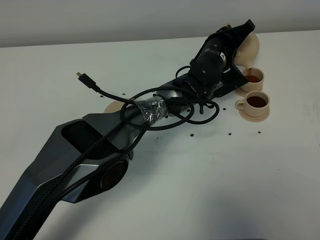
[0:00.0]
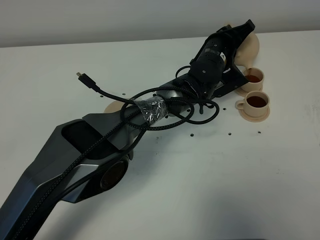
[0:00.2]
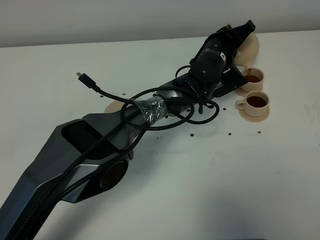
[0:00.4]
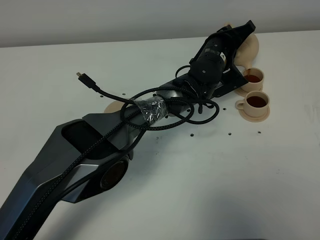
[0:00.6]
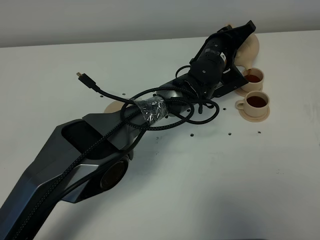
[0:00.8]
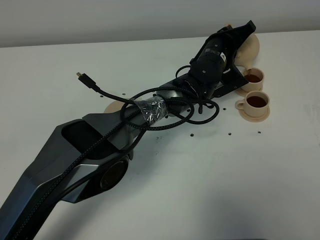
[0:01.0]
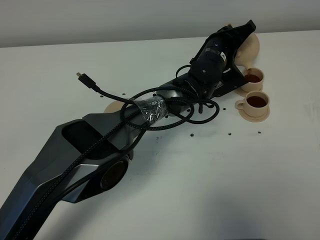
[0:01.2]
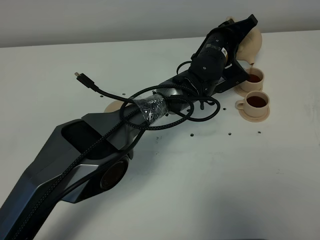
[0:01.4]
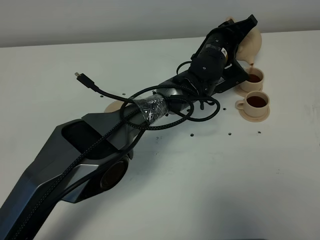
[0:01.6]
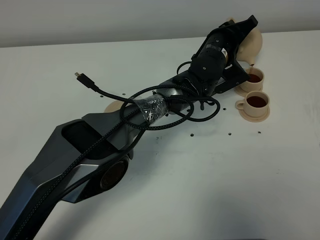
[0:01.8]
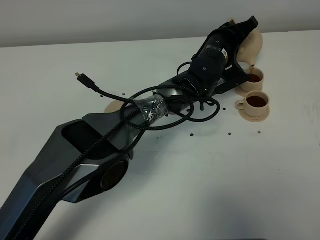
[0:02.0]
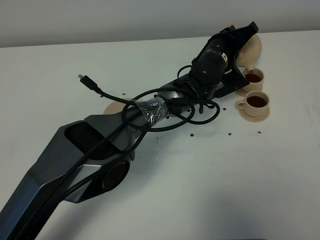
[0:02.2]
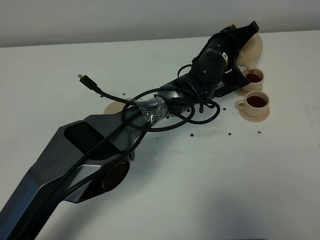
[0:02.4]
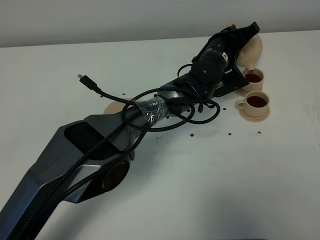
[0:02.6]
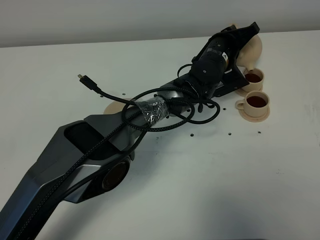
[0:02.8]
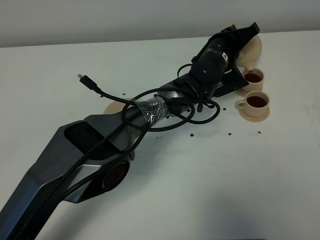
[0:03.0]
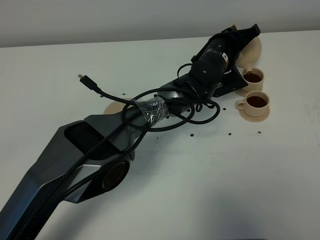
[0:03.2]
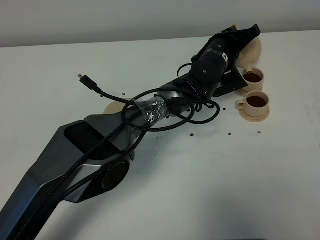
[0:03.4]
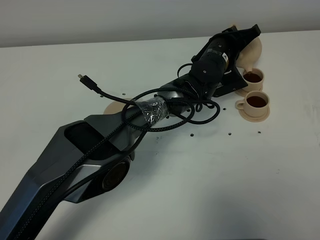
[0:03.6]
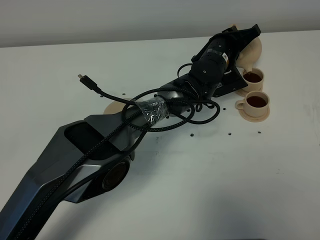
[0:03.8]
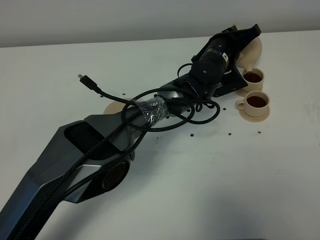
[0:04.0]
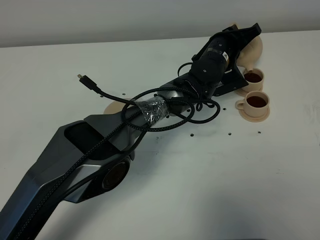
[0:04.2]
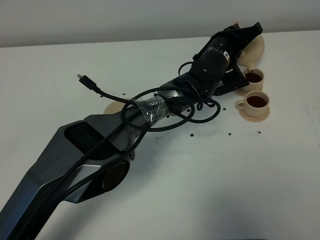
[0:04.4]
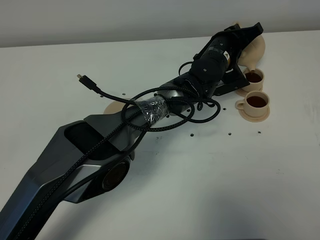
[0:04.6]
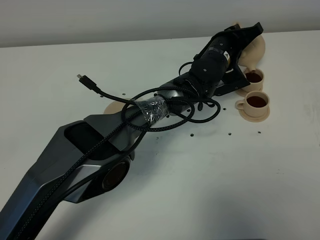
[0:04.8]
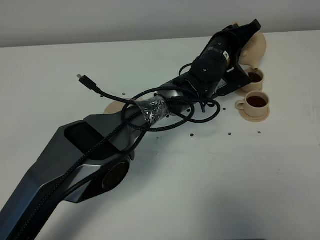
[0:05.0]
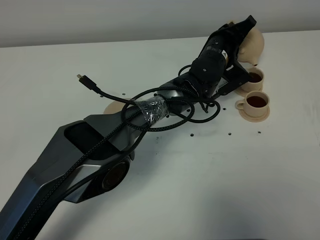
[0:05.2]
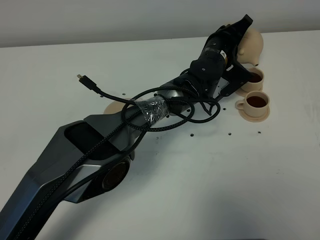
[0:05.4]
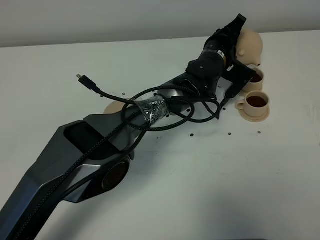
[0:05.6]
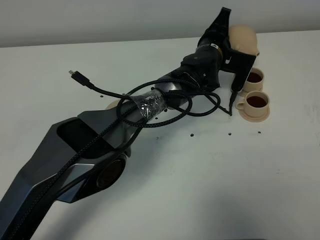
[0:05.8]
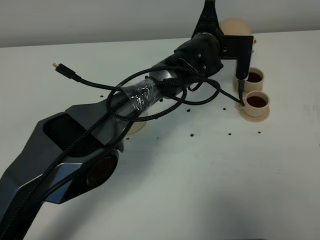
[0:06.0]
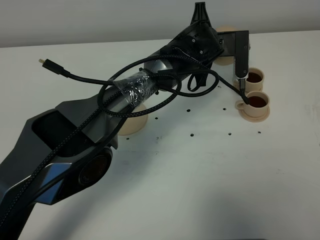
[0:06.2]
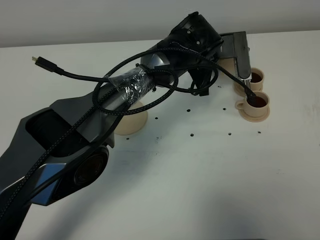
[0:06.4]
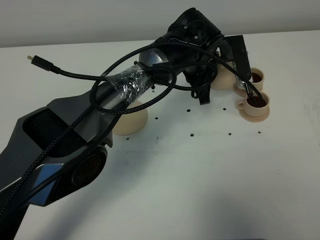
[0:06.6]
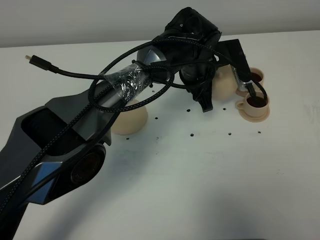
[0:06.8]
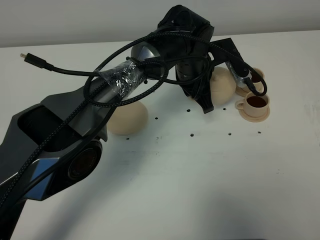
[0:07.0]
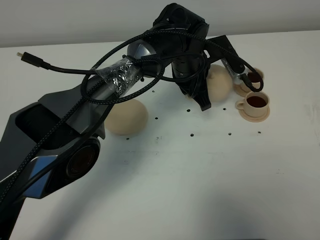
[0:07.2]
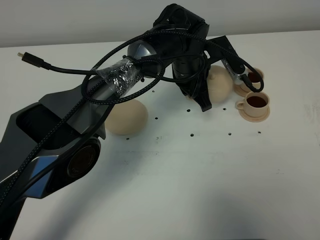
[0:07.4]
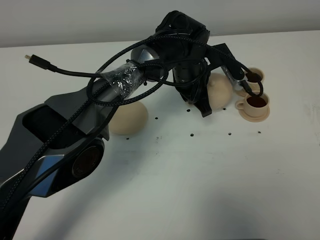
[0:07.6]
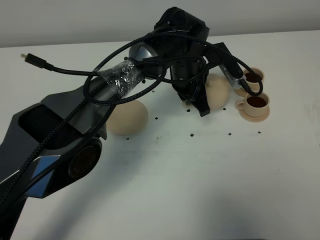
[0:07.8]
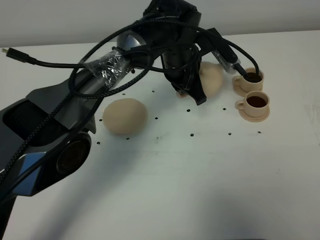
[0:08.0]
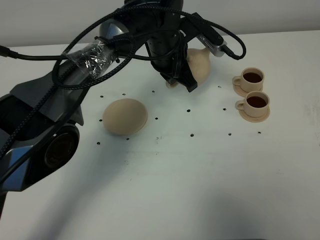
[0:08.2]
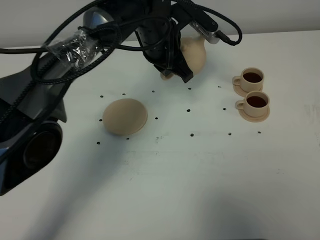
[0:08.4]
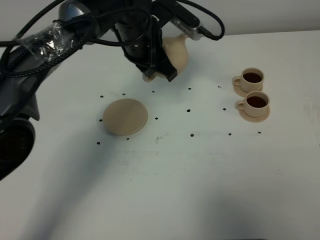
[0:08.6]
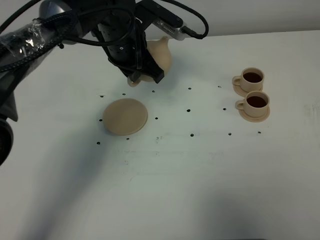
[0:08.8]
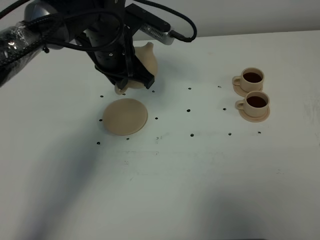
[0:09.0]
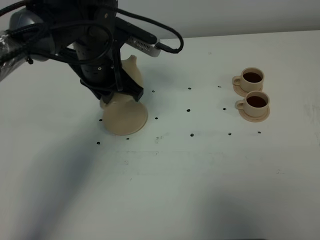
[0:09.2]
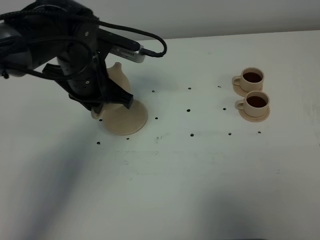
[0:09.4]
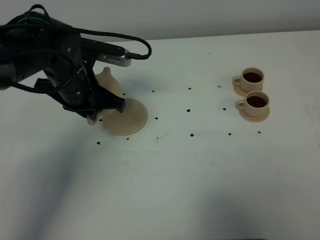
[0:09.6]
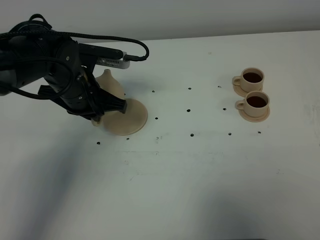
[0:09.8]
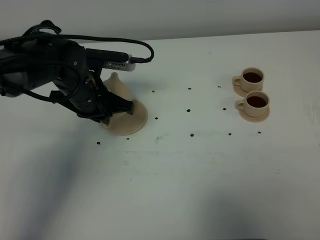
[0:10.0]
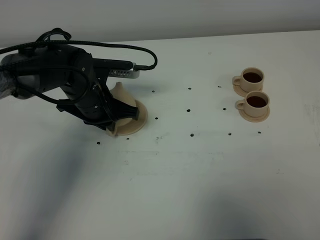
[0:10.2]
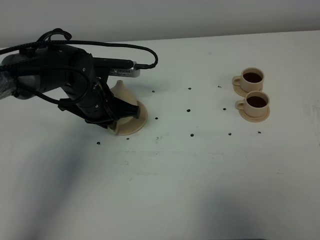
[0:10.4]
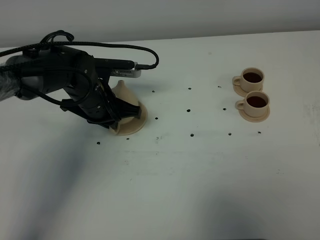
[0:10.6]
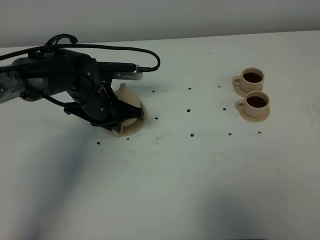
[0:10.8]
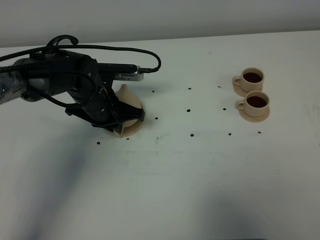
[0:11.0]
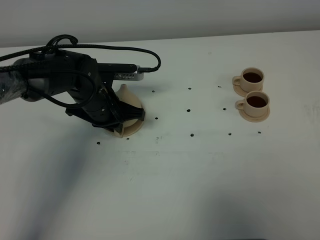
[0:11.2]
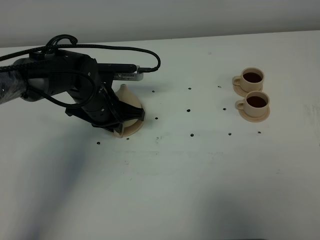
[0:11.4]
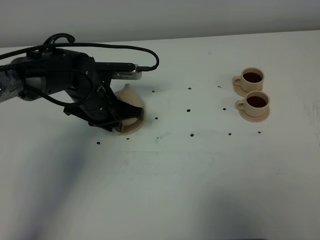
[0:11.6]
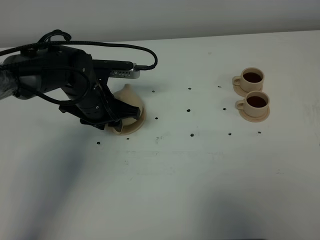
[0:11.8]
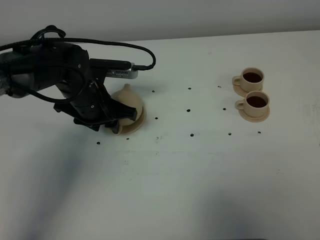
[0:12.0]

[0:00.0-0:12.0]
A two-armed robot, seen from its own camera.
Task of the whole recording: grasp the brown teapot and pour the tea into the two brown teacups one by one, put the brown teapot back in its original place.
Step, 0:00.0 to 0:05.0: Pour tea into the teacup with the left gripper.
0:00.0 to 0:01.6: Both grippers stay put.
0:01.6 to 0:03.0: The two grippers keep their place.
0:03.0 to 0:04.4: The two grippers keep their place.
0:04.4 to 0:06.0: The left gripper ends up roughly 5 cm from where it was.
0:06.0 to 0:07.6: The left gripper shifts by roughly 5 cm.
0:07.6 to 0:09.0: The left gripper shifts roughly 15 cm to the left and upward.
0:09.0 to 0:10.4: The left gripper travels downward and to the left by some 10 cm.
0:10.4 to 0:12.0: The left gripper opens its fingers.

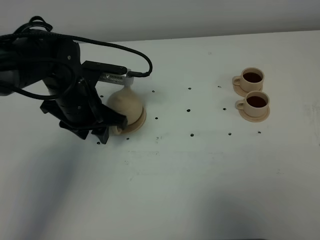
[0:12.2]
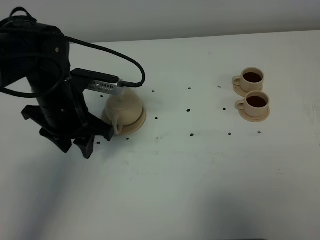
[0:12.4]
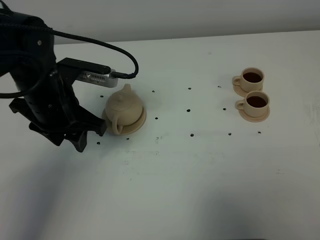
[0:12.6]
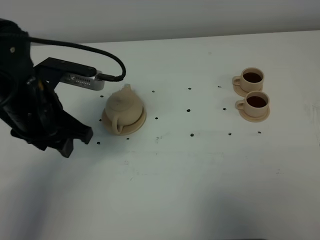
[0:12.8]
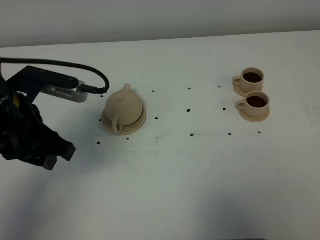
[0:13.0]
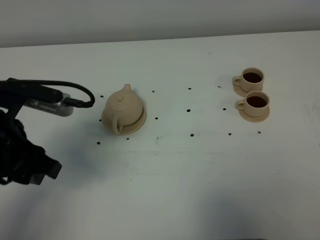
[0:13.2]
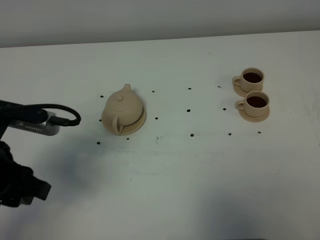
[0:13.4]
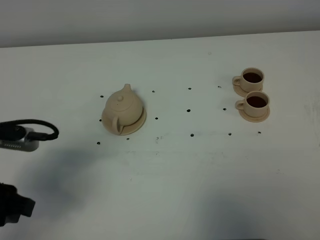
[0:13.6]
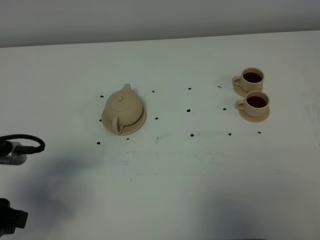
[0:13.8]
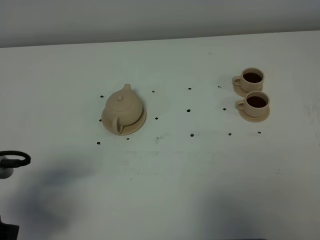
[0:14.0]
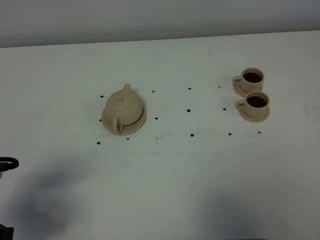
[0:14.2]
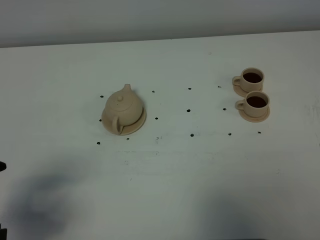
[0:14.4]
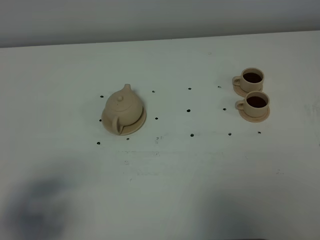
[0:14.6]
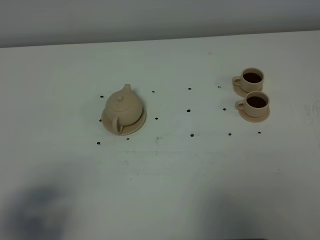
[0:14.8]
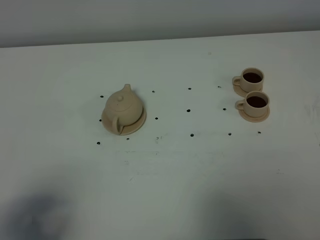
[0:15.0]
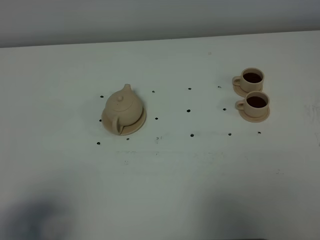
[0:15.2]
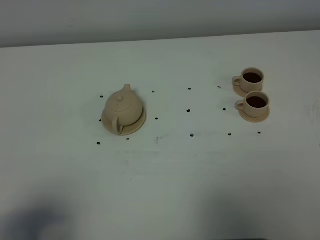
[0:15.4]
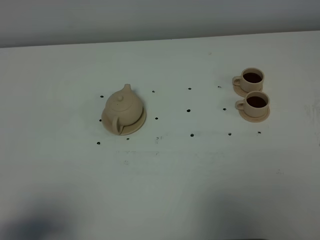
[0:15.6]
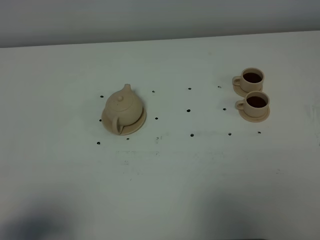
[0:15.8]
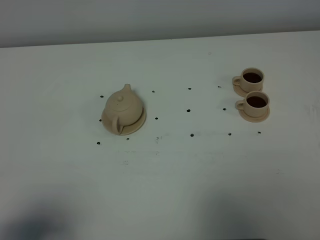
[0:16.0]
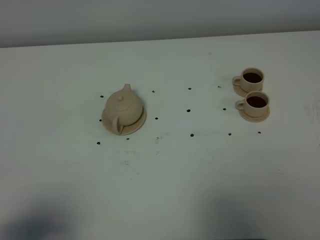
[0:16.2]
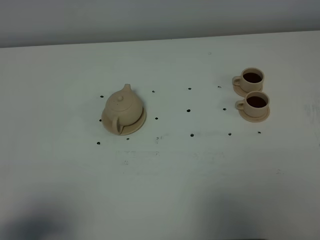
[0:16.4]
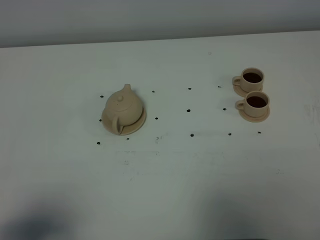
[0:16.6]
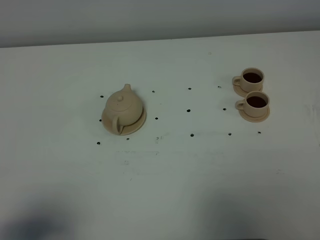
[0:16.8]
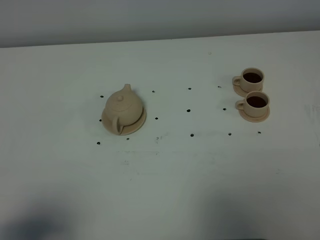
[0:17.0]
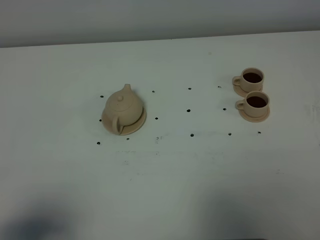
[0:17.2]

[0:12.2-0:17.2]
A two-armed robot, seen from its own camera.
Task of the whole recording: grasp the brown teapot and pour the tea into the two brown teacups one by one, put the brown teapot back in its original place.
0:12.2 to 0:13.8: The left gripper moves backward and to the left, some 25 cm.
0:13.8 to 0:15.6: The left gripper heads backward, covering about 15 cm.
0:15.6 to 0:17.2: Both grippers stay about where they are.
